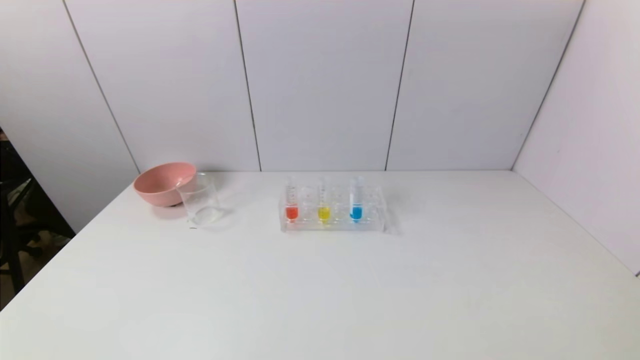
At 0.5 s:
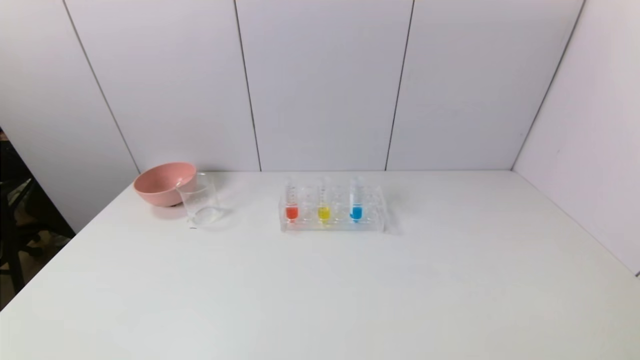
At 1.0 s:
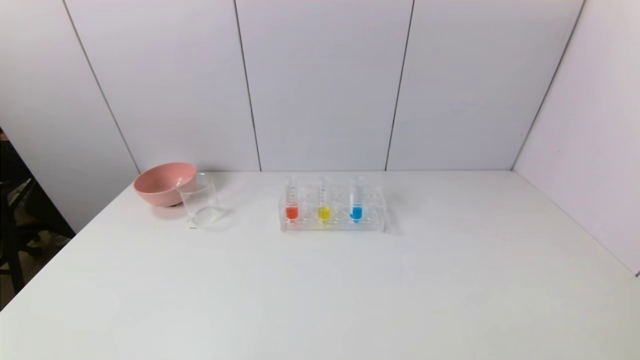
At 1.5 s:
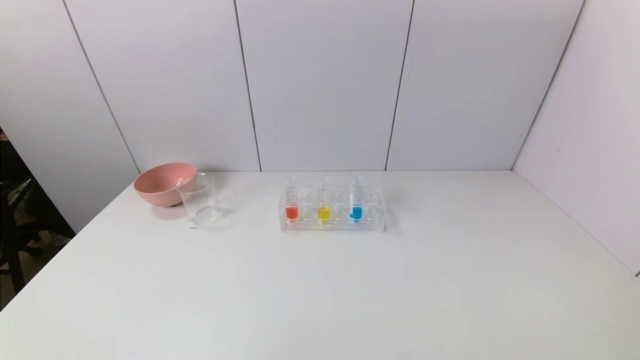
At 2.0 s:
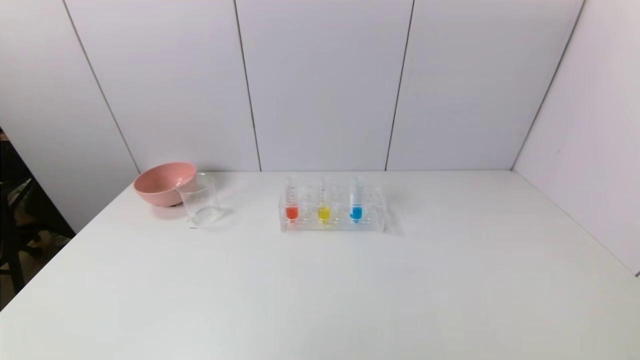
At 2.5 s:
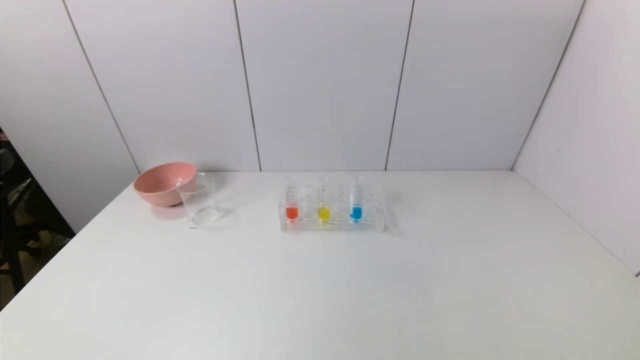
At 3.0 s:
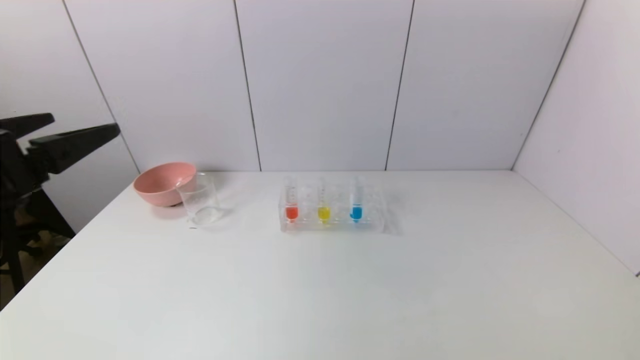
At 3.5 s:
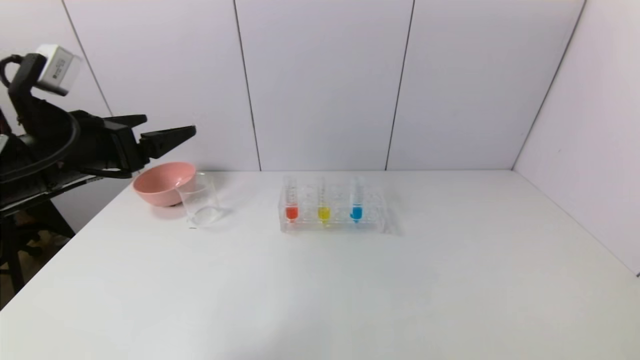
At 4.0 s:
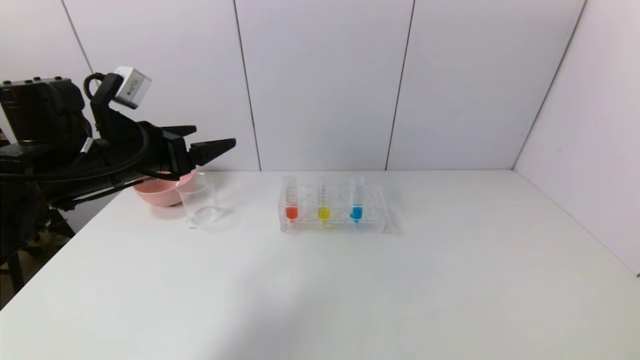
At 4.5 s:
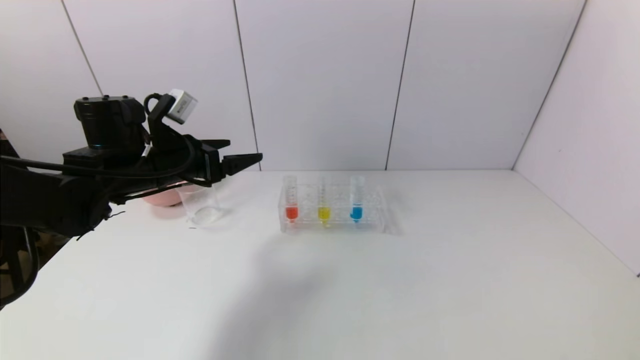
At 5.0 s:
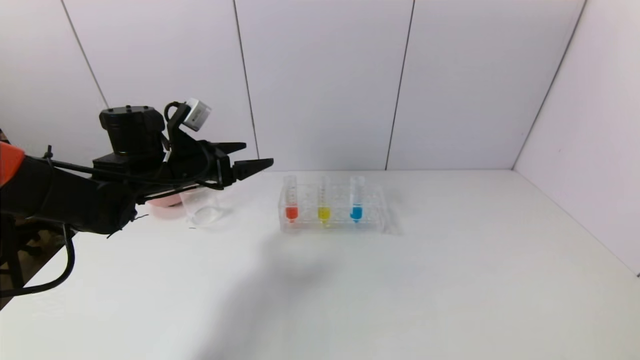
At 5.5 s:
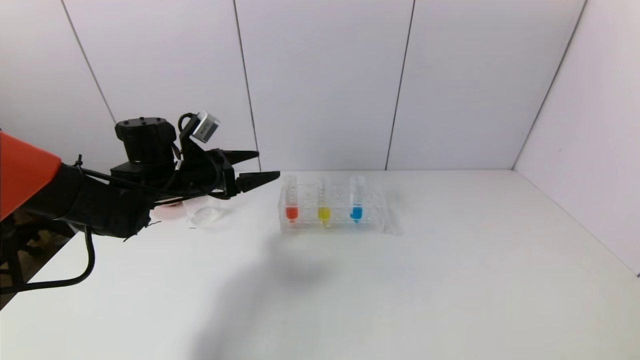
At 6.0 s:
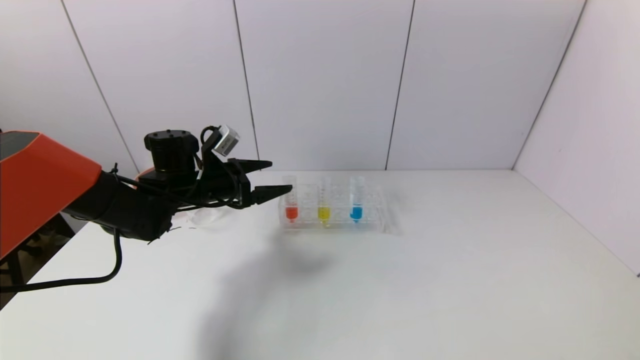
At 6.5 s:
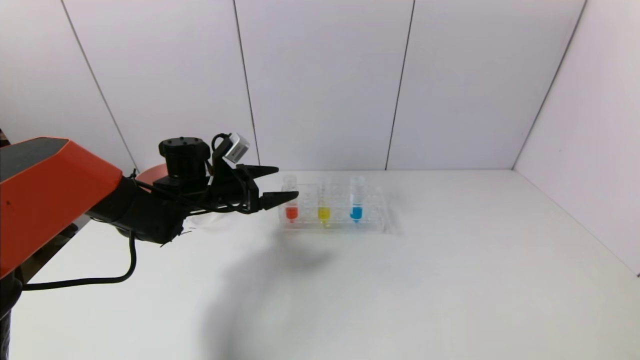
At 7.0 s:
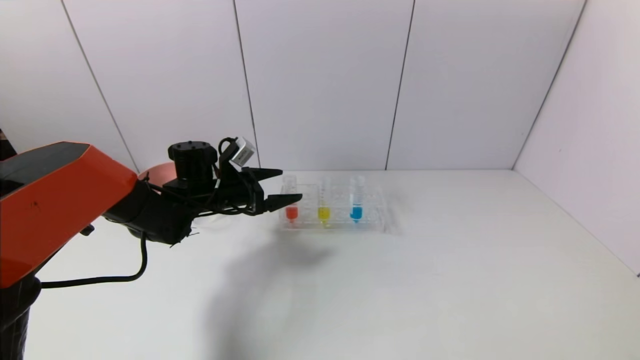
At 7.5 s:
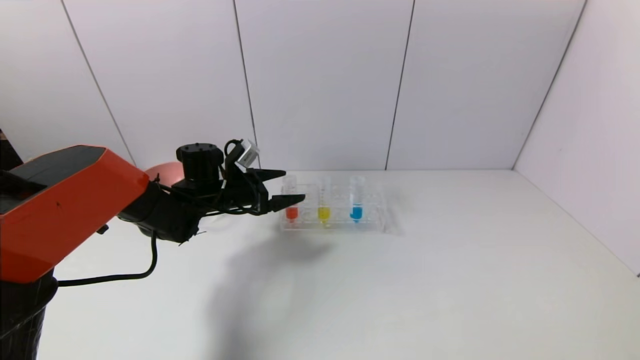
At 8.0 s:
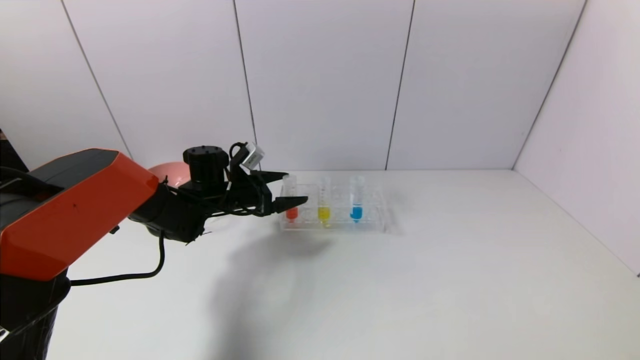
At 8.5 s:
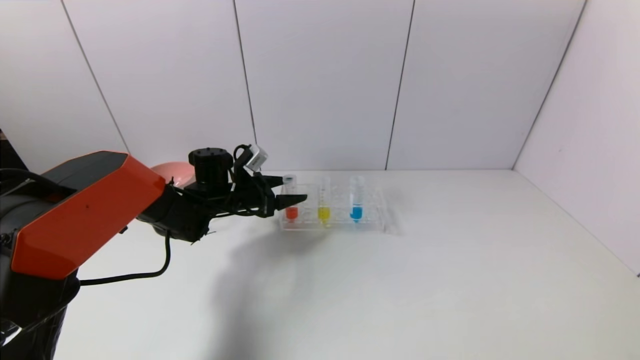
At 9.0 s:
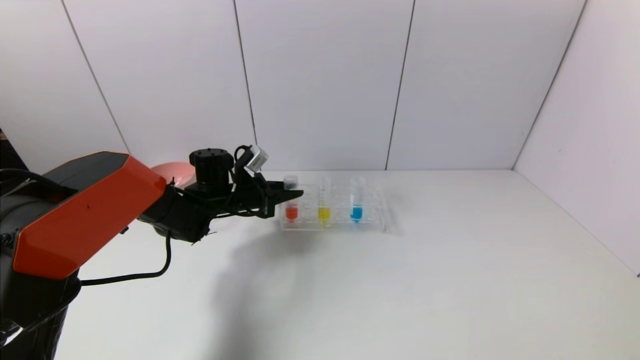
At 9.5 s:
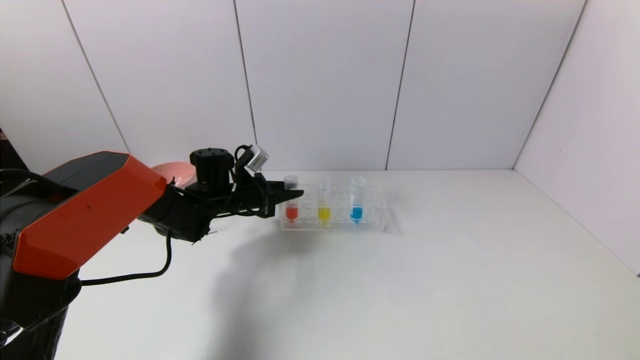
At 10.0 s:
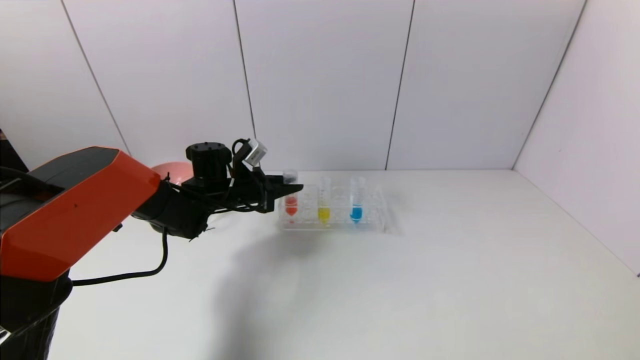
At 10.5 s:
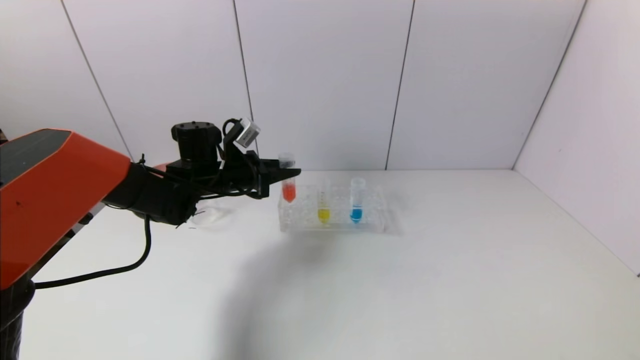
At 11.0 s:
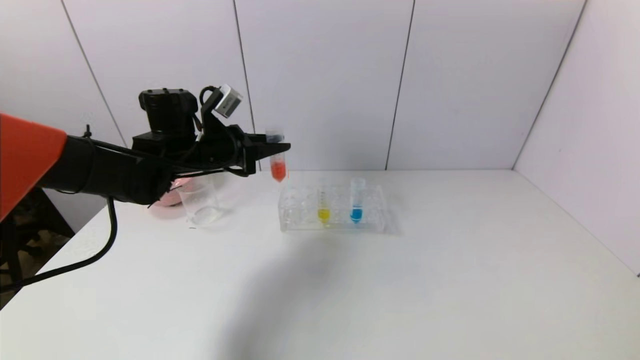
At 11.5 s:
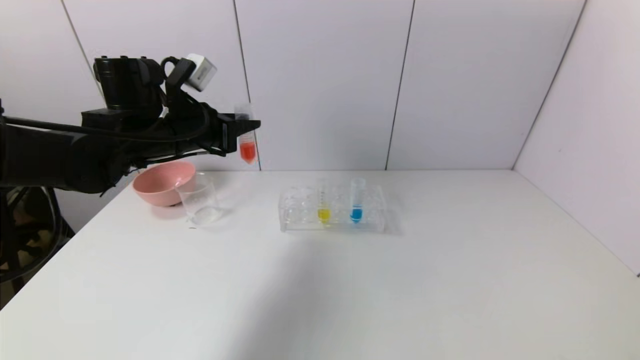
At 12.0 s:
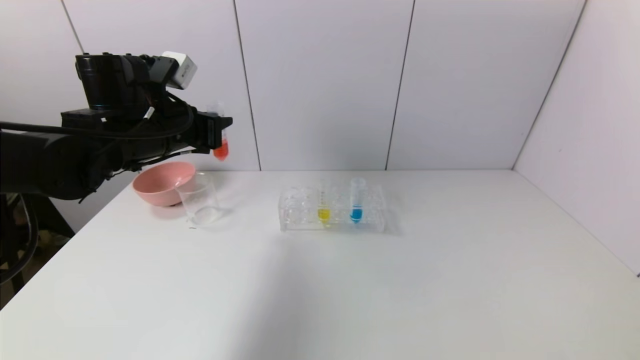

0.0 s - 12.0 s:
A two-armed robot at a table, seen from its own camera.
Task of the whole recording: pick up the test tube with red pigment and the test tube with blue pigment by grippers and pour them into the container.
Step, 0.0 s - 9.5 s: Grasp the red reagent with the left gripper.
2.0 s - 4.0 s: The left gripper heads forward, covering roughly 30 cm.
4.0 s - 6.0 s: The left gripper travels forward and downward by about 15 cm.
6.0 s - 8.0 s: The left gripper shifts by some 5 cm.
8.0 s - 10.0 s: The left gripper closes.
10.0 s - 12.0 s: The left gripper heads upward and backward, covering about 20 cm.

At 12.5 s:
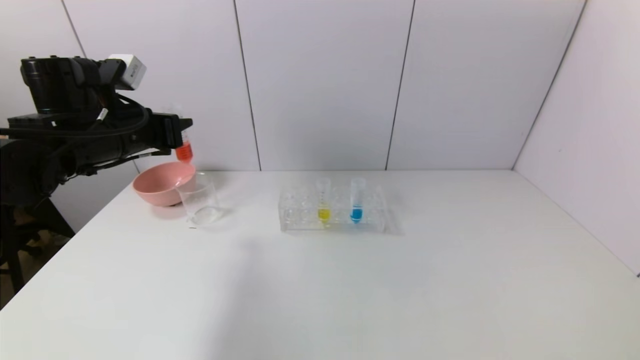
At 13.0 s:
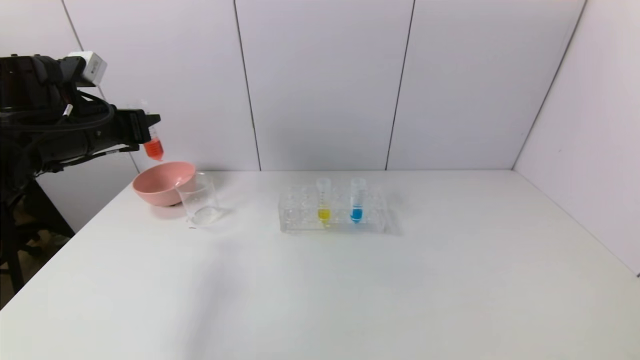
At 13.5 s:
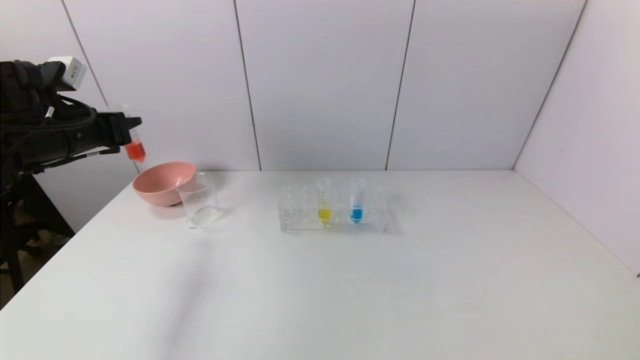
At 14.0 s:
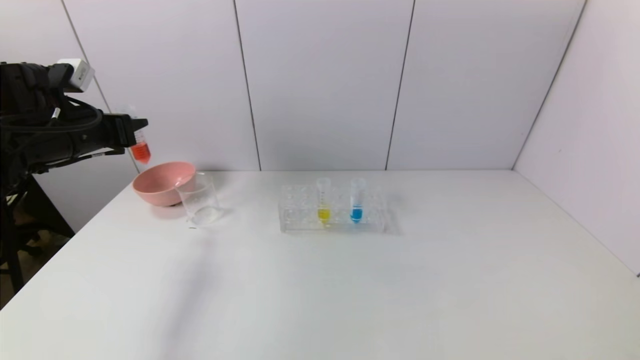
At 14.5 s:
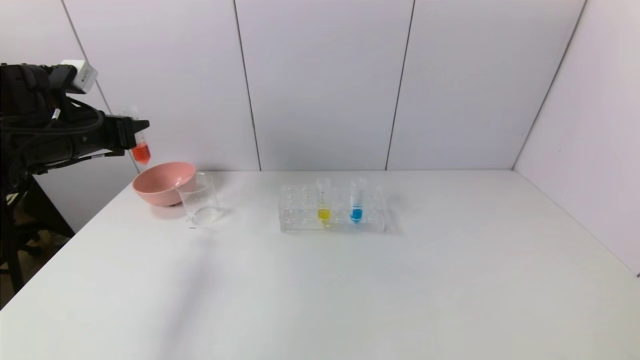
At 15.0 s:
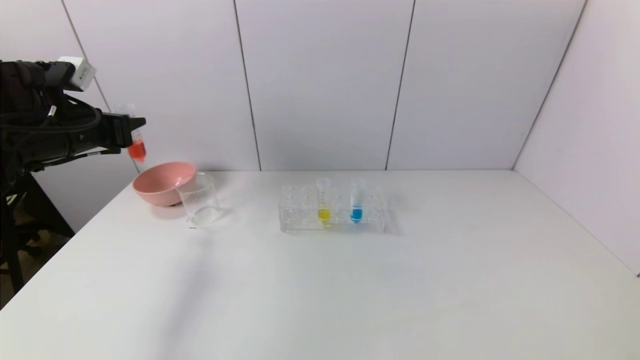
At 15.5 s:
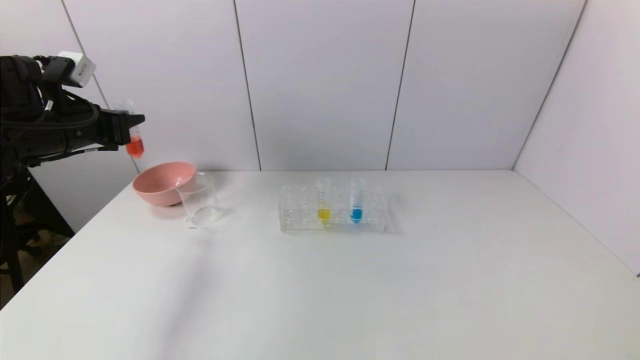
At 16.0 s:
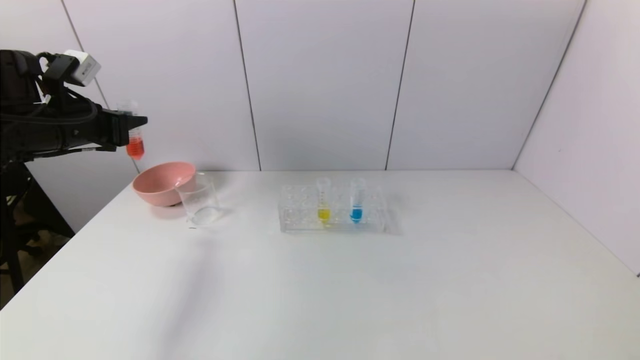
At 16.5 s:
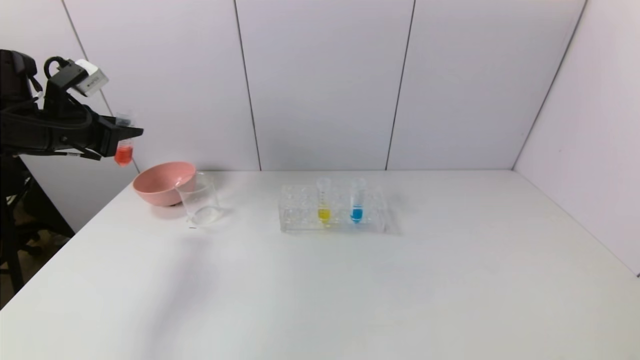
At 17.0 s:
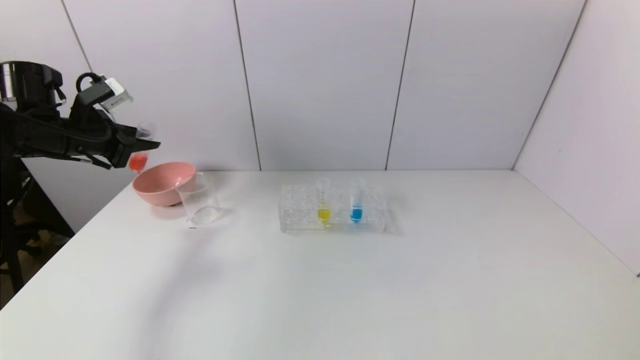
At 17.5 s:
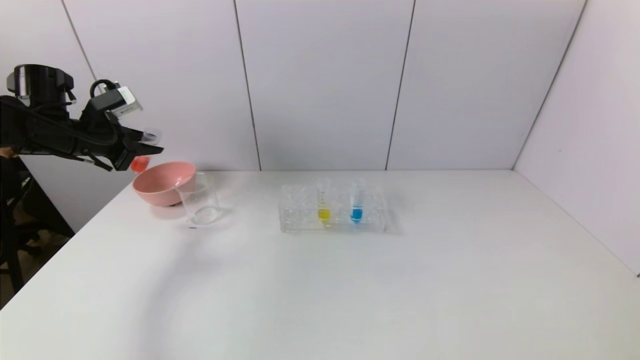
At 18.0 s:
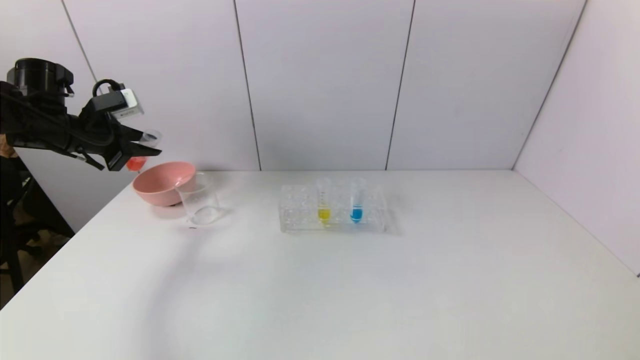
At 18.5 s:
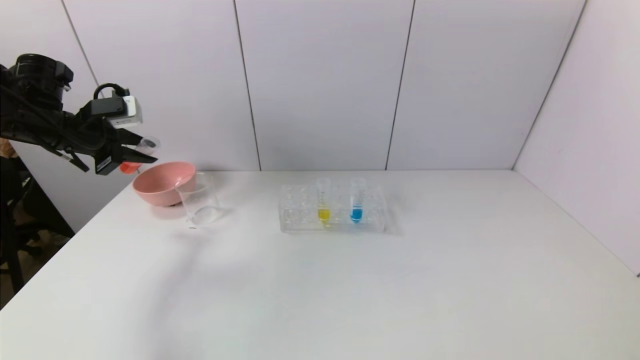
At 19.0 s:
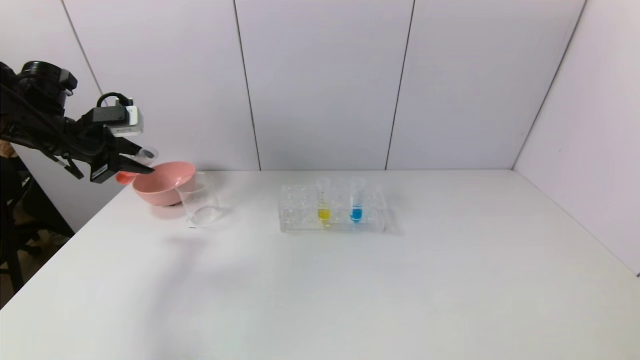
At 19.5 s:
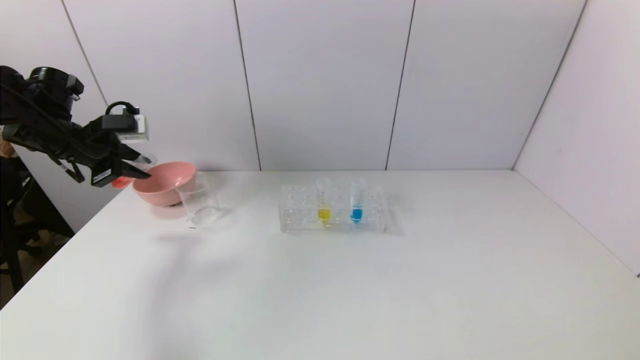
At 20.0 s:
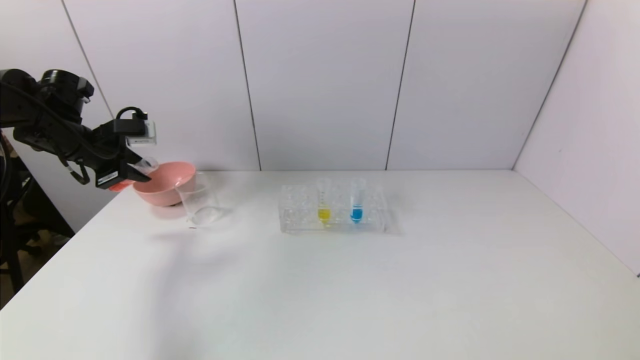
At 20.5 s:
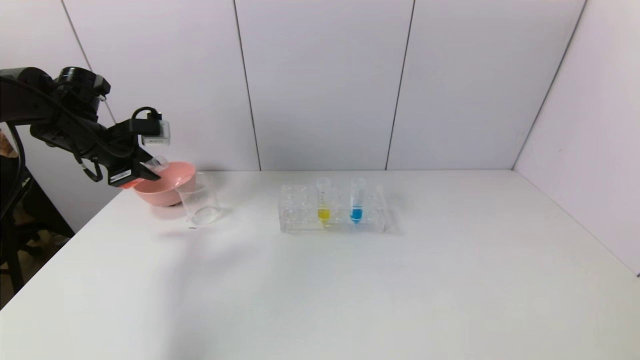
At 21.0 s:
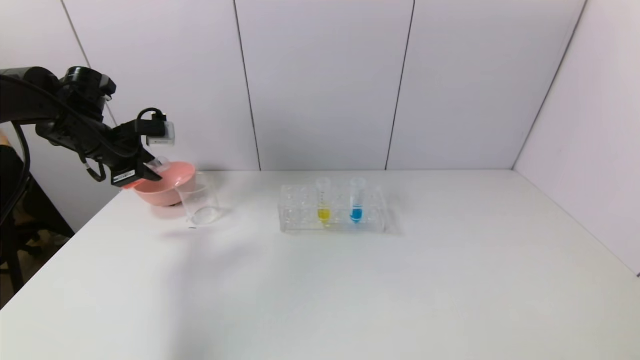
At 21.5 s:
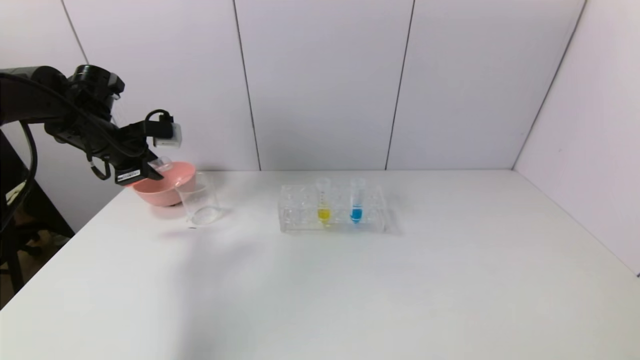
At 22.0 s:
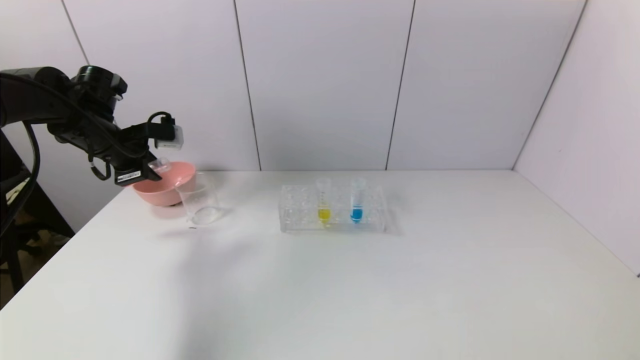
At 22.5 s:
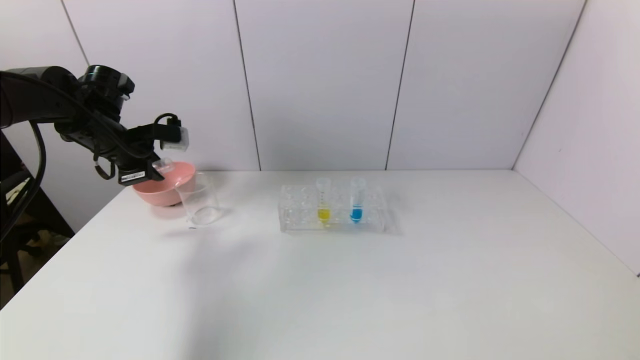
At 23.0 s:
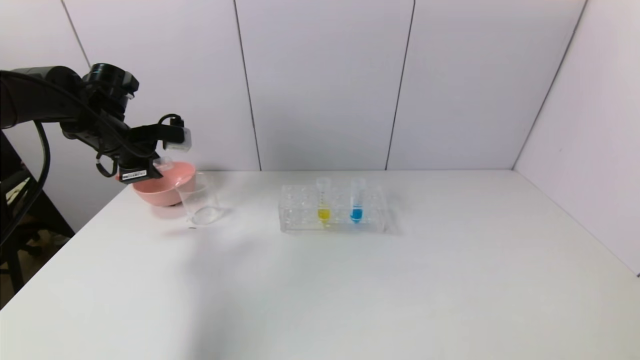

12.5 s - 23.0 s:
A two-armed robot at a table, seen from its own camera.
Task of the whole recording: pick up the test tube with red pigment and the test tube with blue pigment by grippers and pour them into the container.
12.5 s - 14.5 s: The left gripper heads to the left, covering about 10 cm.
19.0 s - 21.0 s: The grippers move only a little.
21.0 s - 23.0 s: There are only small adjustments of the grippers.
